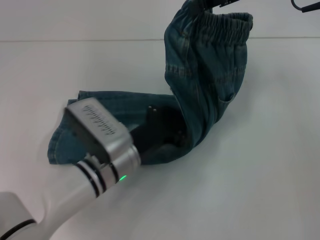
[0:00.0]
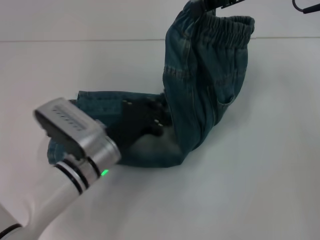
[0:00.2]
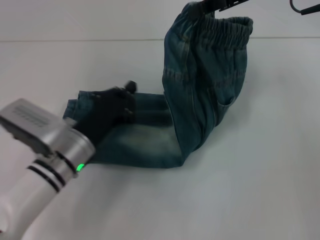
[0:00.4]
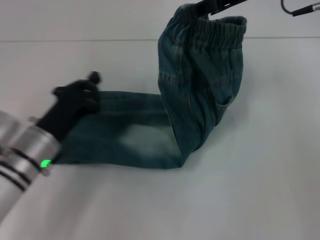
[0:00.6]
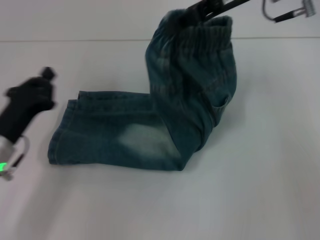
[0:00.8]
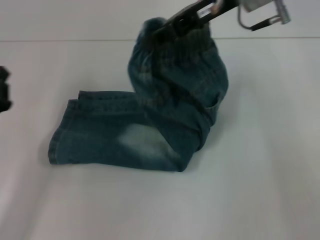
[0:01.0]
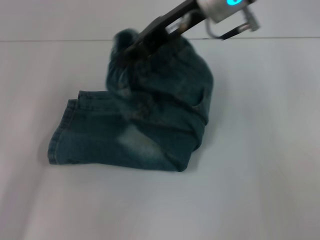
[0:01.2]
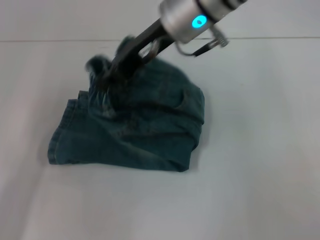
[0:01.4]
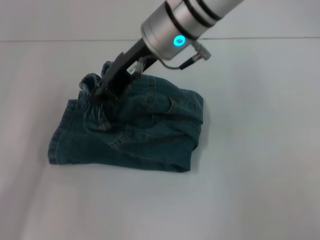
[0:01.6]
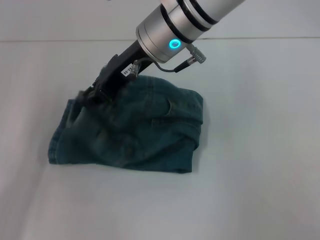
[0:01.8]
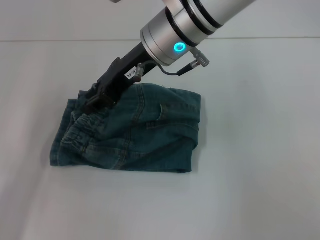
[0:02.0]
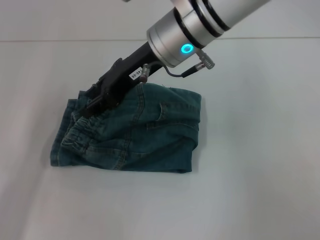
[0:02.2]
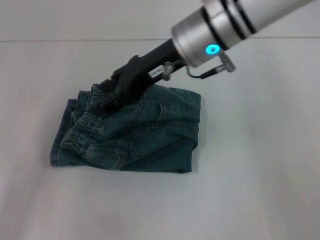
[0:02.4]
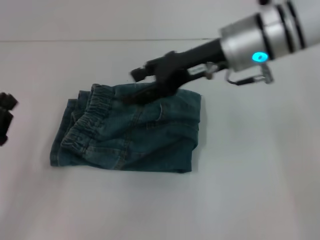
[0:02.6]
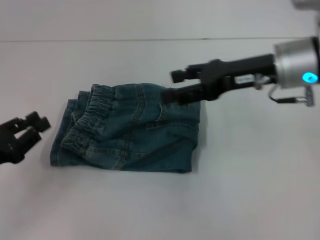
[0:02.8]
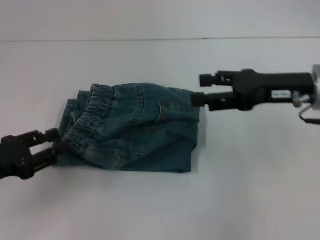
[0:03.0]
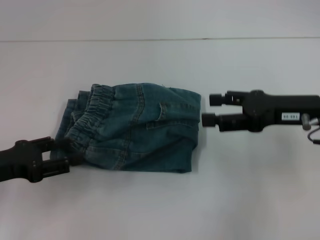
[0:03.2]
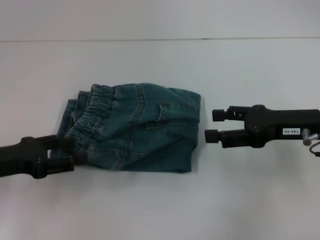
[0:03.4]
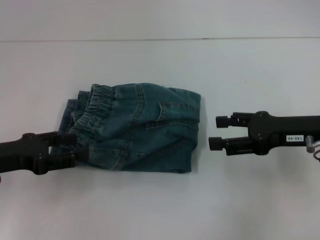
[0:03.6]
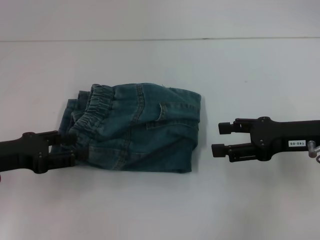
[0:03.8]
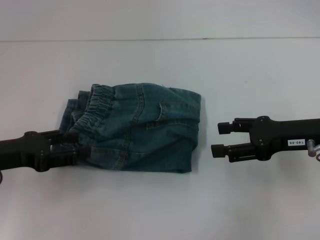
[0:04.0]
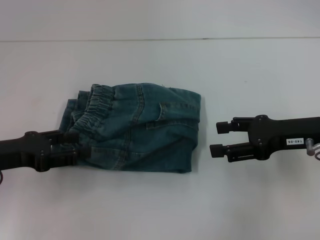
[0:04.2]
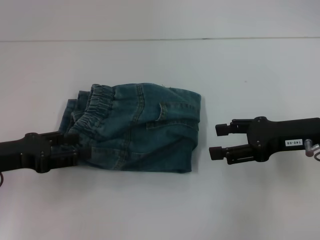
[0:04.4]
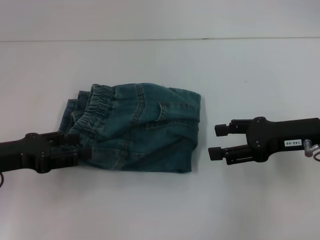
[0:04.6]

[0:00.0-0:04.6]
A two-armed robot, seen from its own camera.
Step, 0:00.0 to 0:02.2: Fold to the left with your right hand.
0:00.0 to 0:01.6: Both grippers move to the left, about 20 cm.
0:01.6 to 0:03.0: The right gripper moves to the right, approximately 20 cm, and opens up.
0:03.0 to 0:04.6: The left gripper opens up; the right gripper changes place by approximately 5 cm.

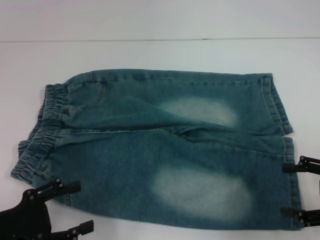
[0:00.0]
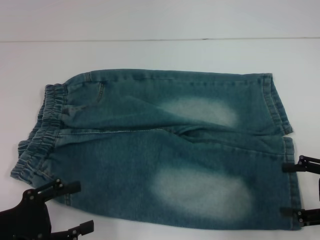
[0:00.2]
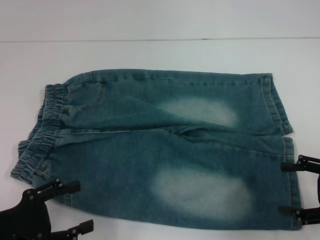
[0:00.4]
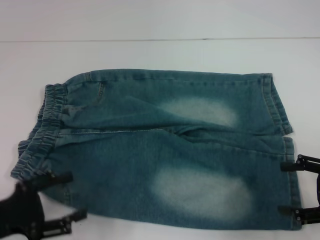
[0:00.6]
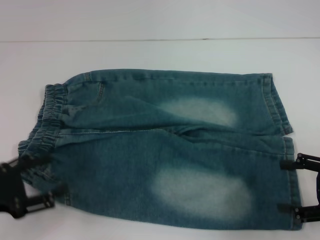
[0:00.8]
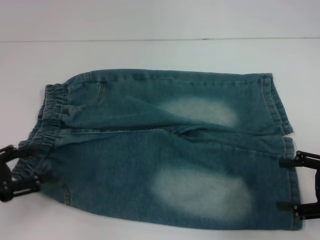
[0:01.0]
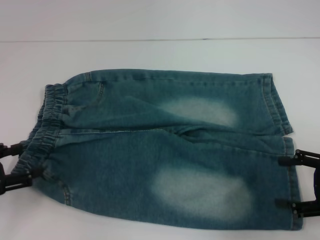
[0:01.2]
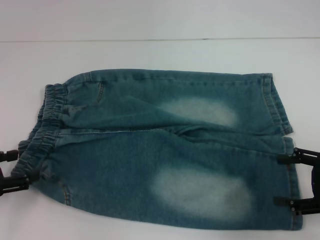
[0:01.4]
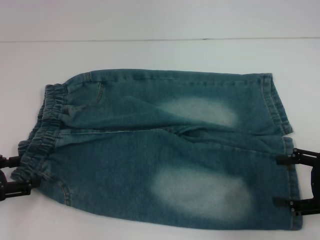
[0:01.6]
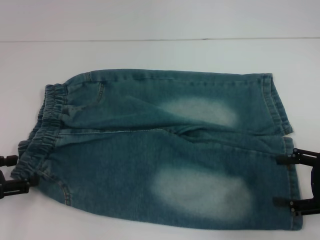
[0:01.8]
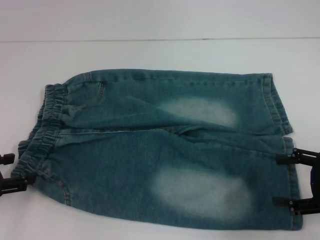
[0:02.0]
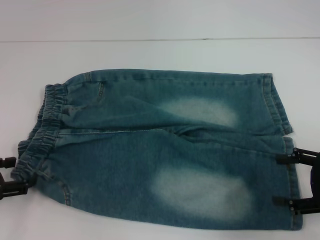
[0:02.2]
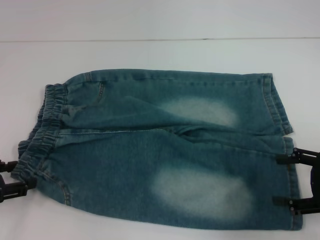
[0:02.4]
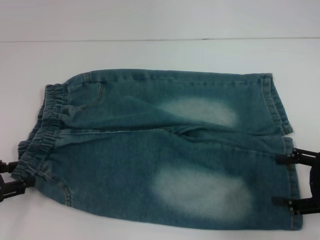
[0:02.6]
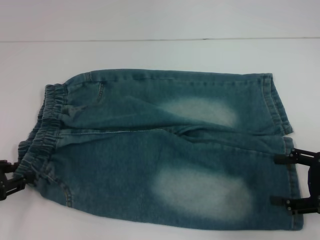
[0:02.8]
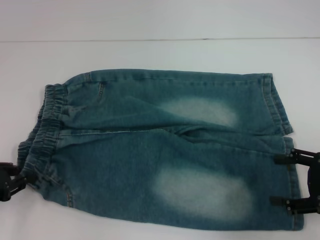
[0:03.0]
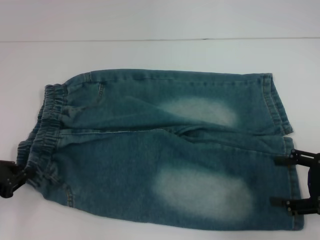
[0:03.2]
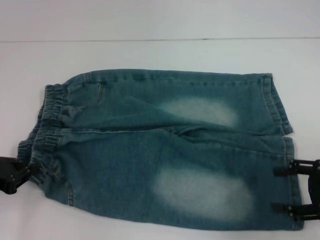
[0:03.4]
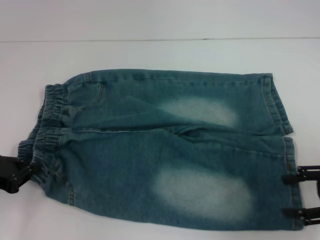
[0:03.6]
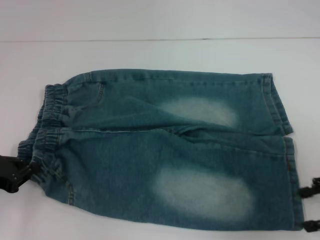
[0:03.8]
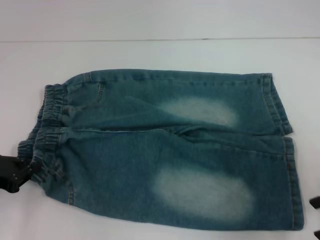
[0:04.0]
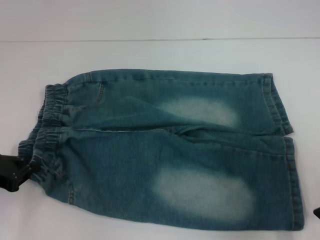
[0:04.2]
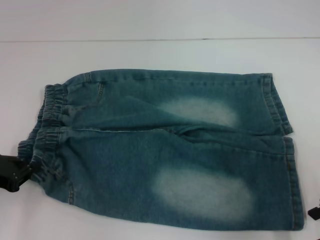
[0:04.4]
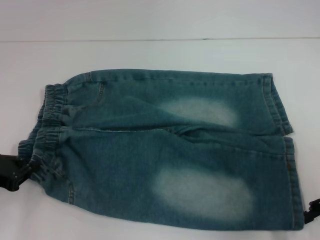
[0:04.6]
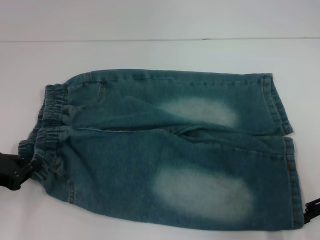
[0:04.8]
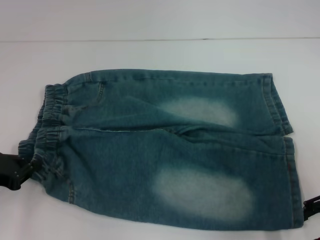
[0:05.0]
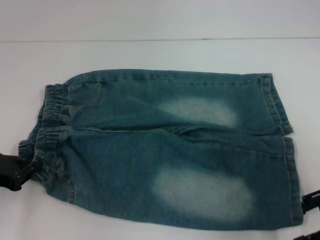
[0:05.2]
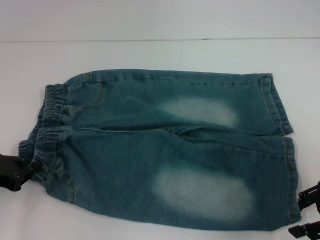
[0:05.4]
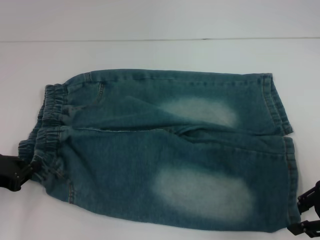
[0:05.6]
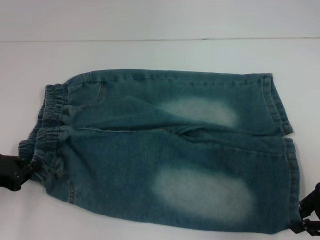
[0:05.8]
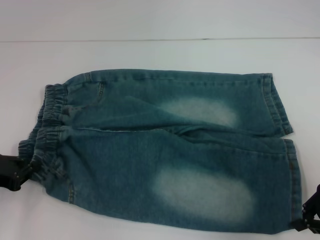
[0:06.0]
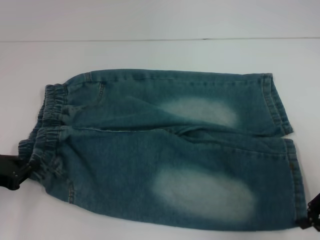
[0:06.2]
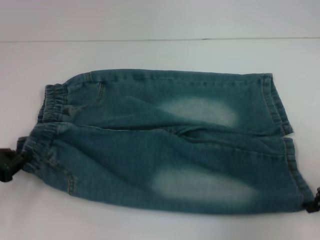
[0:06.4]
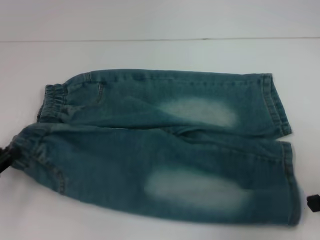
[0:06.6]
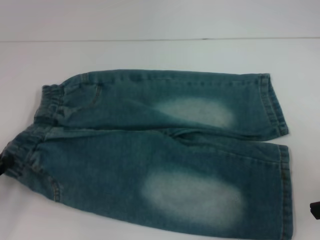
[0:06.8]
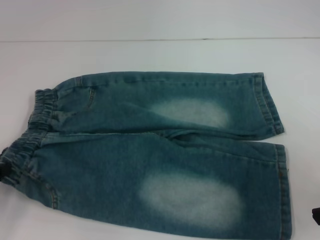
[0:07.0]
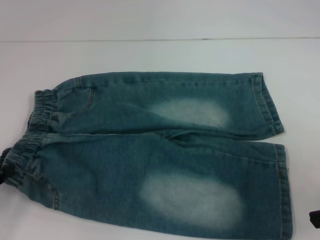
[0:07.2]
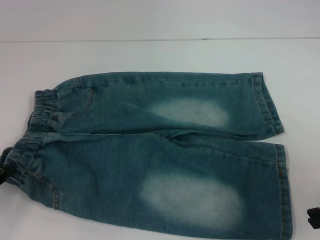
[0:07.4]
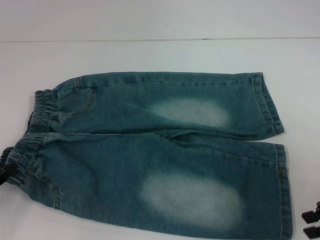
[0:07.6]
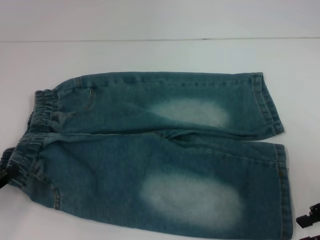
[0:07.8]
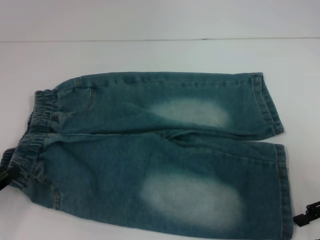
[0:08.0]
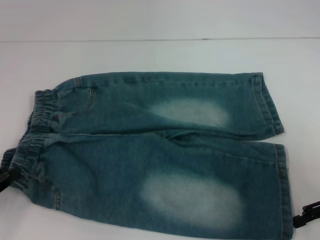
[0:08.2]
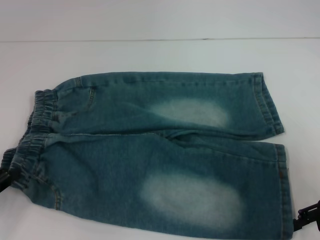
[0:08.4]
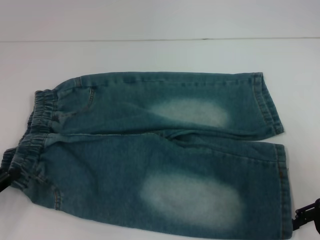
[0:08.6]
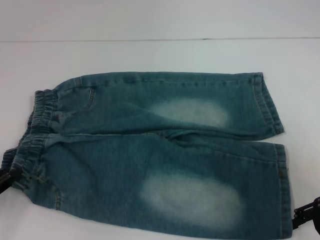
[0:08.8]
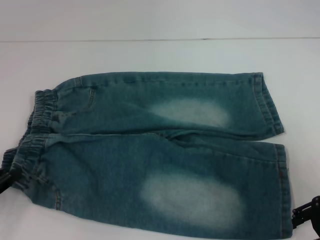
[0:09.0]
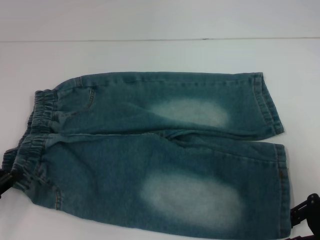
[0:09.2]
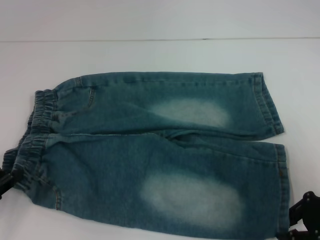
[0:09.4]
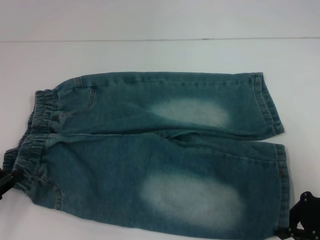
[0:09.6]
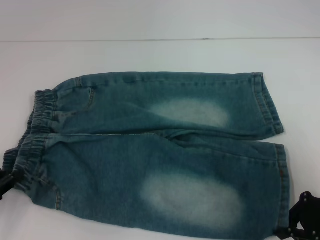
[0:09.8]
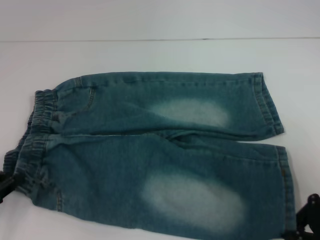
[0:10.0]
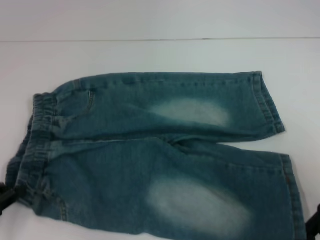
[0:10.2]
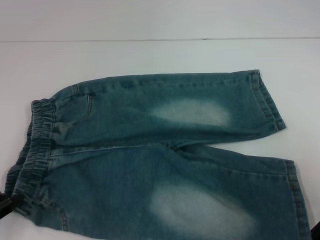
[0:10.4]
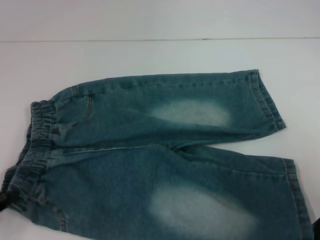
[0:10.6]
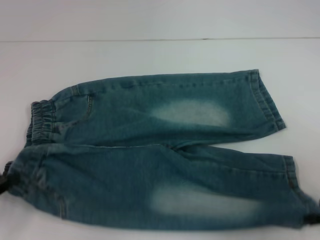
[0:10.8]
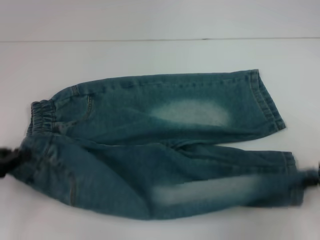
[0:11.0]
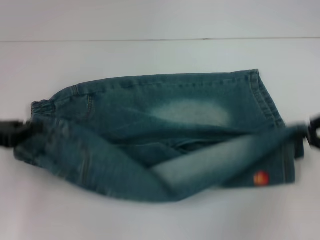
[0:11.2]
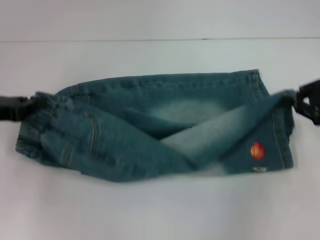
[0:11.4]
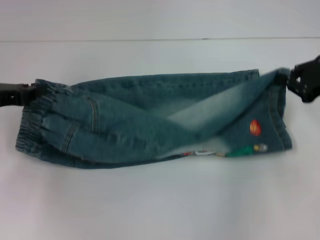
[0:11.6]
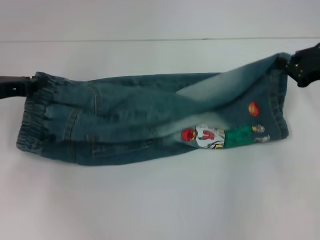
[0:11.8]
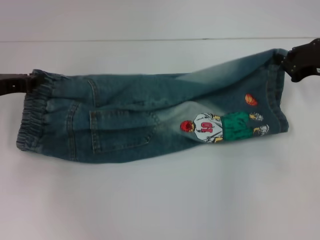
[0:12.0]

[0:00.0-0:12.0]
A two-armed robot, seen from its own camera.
Step, 0:00.0 to 0:02.6: Hold the lower left waistband with your left hand.
Step, 0:02.8 to 0:09.6: Grab the lower right pant leg with your right hand.
0:00.0 to 0:01.6: The left gripper heads forward and to the left, covering about 10 cm.
0:01.6 to 0:03.0: The left gripper closes.
0:03.0 to 0:04.4: The left gripper closes.
0:04.4 to 0:06.0: The right gripper closes.
0:06.0 to 0:07.6: The grippers make only small movements.
0:07.6 to 0:09.0: The right gripper opens up.
0:09.0 to 0:10.4: The right gripper closes its fingers.
0:10.4 to 0:12.0: Both grippers travel together forward, roughly 15 cm.

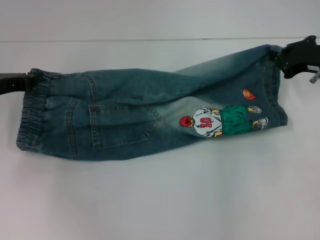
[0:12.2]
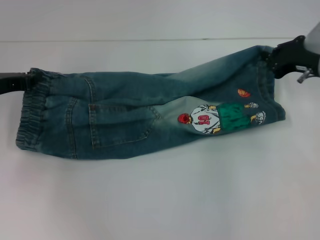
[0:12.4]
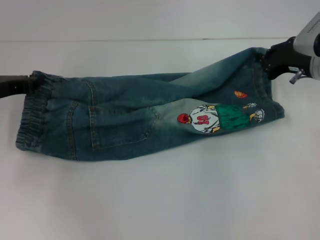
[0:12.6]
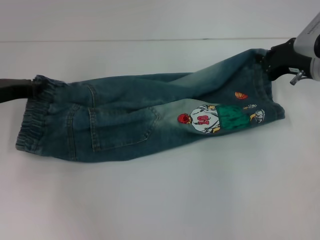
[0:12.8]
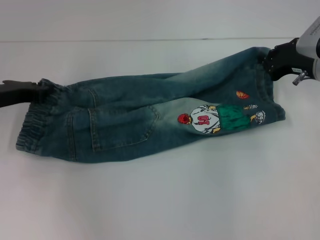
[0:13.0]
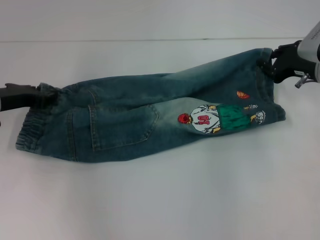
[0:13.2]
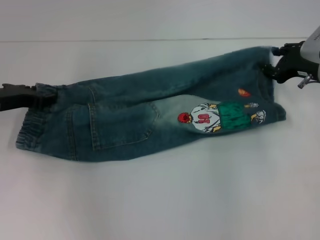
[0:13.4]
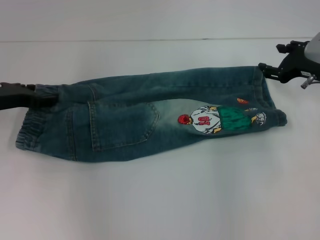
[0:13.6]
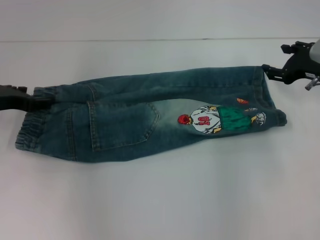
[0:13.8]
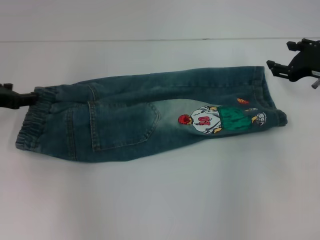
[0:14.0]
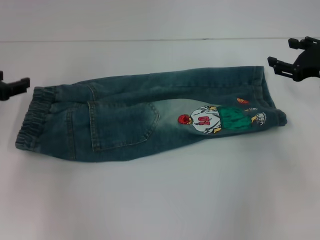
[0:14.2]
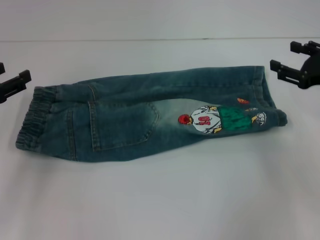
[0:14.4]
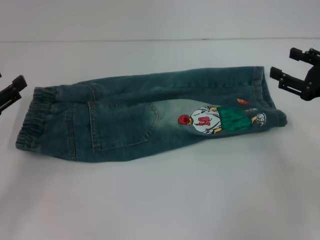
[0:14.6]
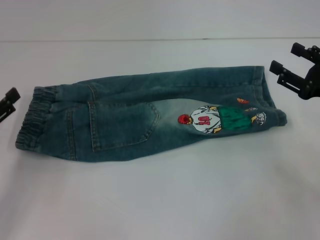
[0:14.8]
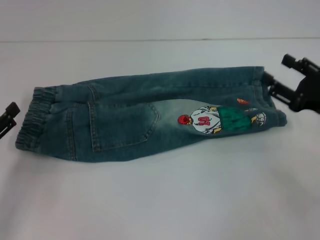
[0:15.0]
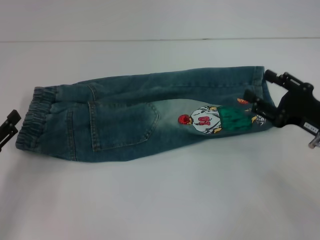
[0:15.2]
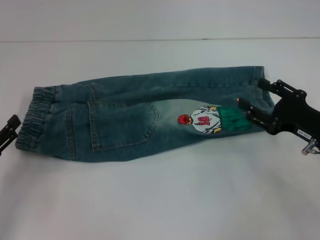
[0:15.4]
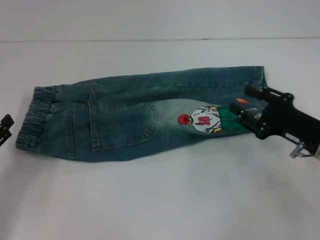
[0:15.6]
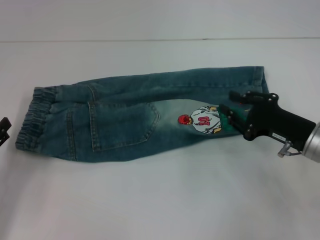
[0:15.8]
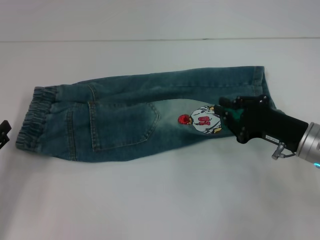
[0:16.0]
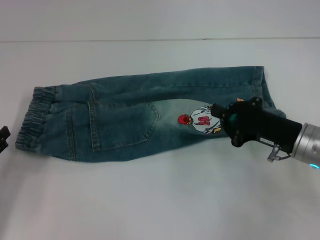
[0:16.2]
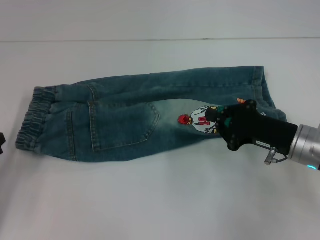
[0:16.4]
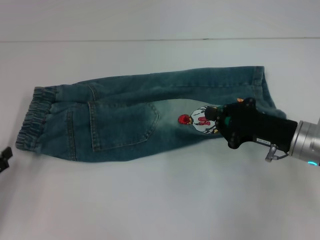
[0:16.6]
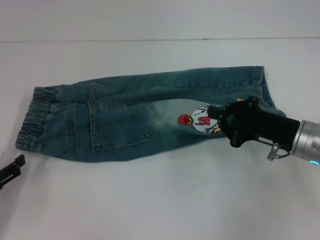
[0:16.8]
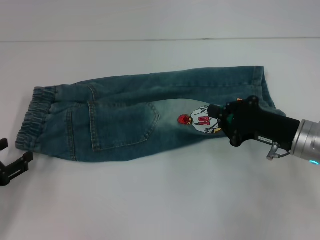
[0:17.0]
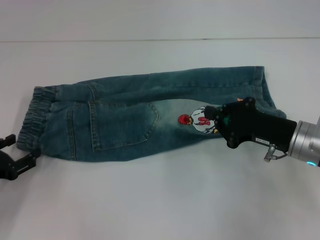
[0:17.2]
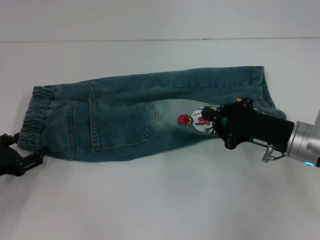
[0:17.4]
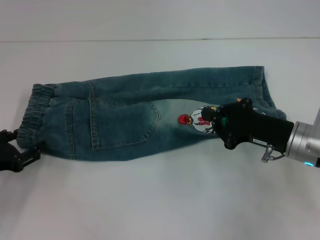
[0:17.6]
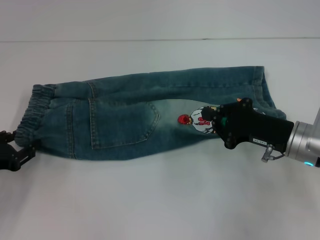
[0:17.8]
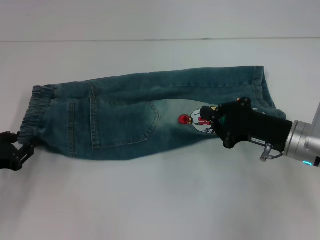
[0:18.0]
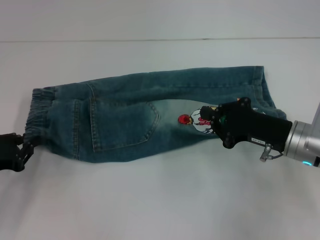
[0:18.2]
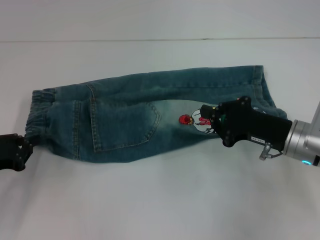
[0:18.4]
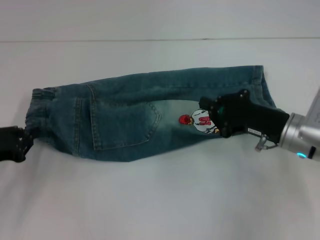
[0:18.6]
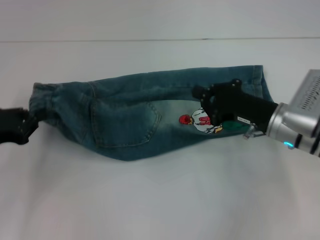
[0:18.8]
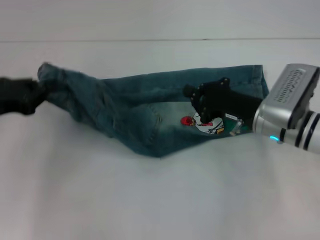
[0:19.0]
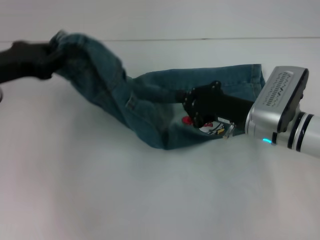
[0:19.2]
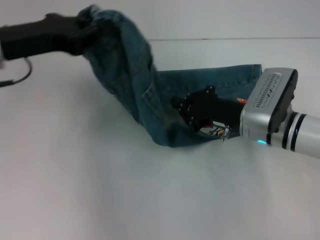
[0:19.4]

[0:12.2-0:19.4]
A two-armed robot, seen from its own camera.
Step, 0:12.2 to 0:14.6: Fold upward with your right hand.
Step, 0:14.8 to 0:18.2: Hold the waistband with your left hand.
0:12.2 to 0:13.6: The right gripper opens its fingers, while the left gripper opens.
0:13.6 to 0:15.0: Both grippers move backward, some 15 cm.
0:15.0 to 0:16.6: The right gripper is displaced to the left by some 5 cm, and closes up.
0:16.6 to 0:18.0: The left gripper travels forward by roughly 5 cm.
0:18.0 to 0:19.4: The left gripper moves upward, forward and to the right, approximately 20 cm, and closes. The right gripper shifts roughly 5 cm to the left.
